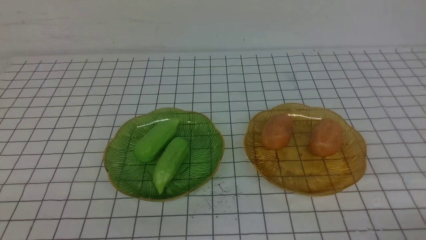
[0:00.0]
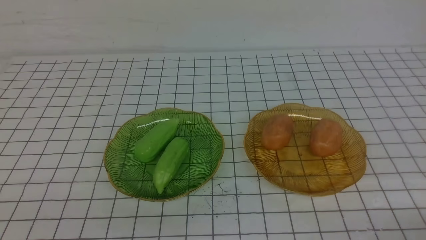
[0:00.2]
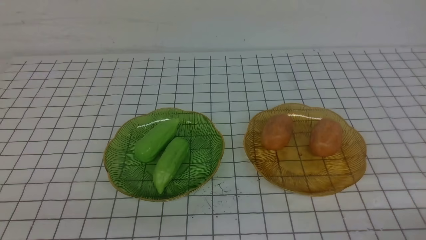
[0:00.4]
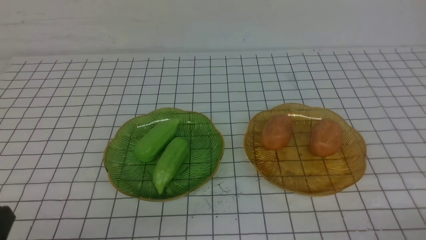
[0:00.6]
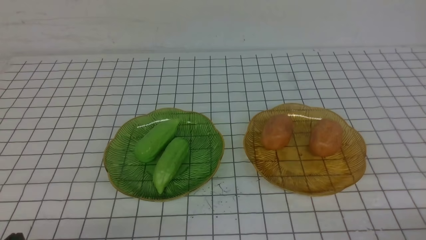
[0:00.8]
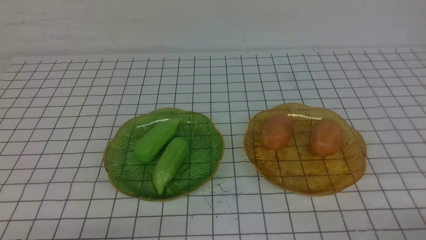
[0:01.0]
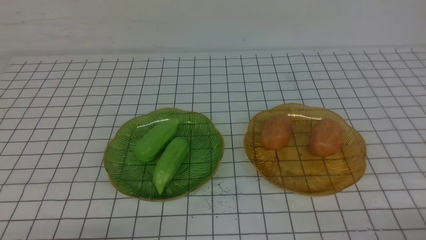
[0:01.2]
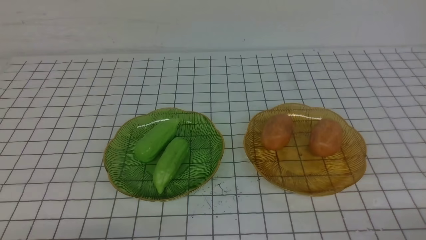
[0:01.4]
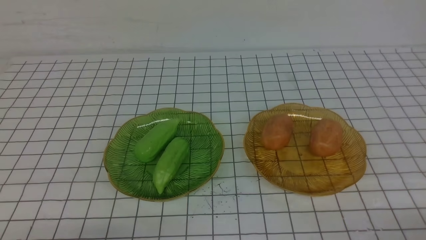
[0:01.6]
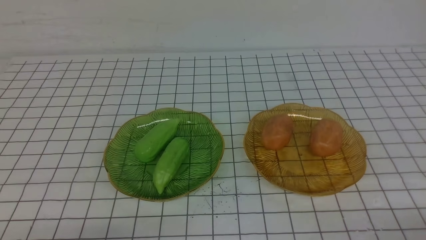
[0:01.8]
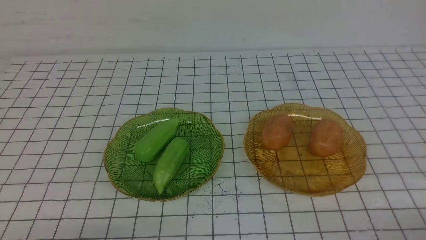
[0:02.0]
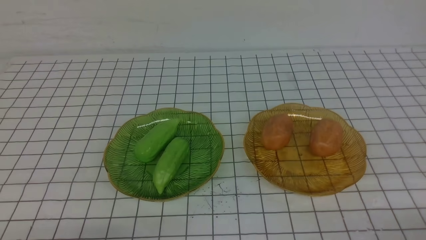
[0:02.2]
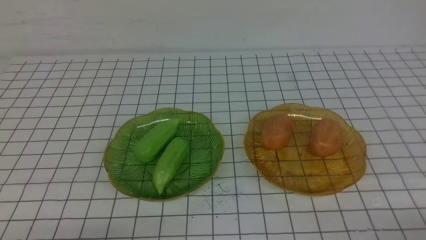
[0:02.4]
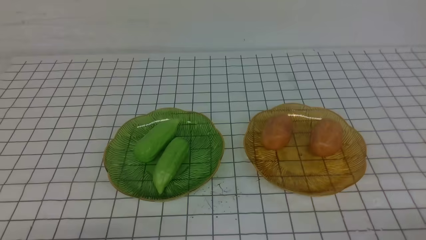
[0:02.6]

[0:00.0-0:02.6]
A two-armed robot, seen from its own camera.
0:01.2 to 0:02.6: Both grippers stay put.
